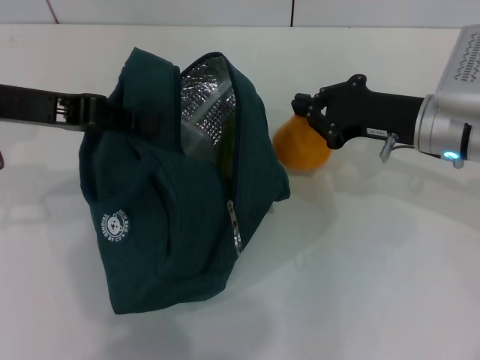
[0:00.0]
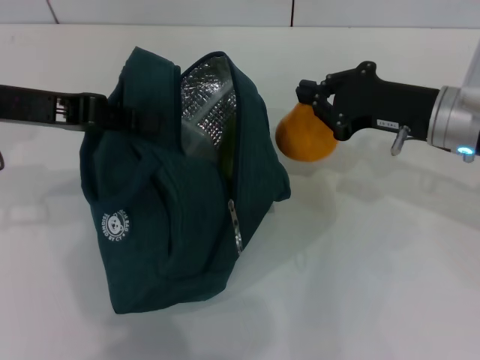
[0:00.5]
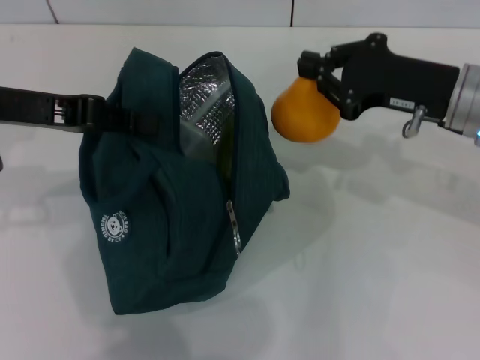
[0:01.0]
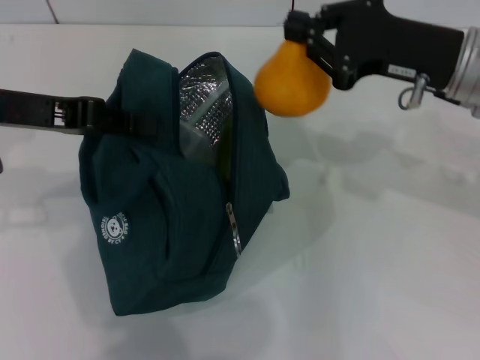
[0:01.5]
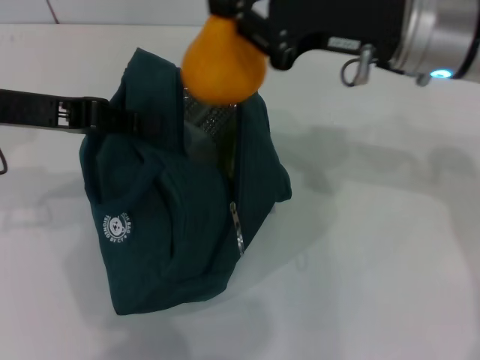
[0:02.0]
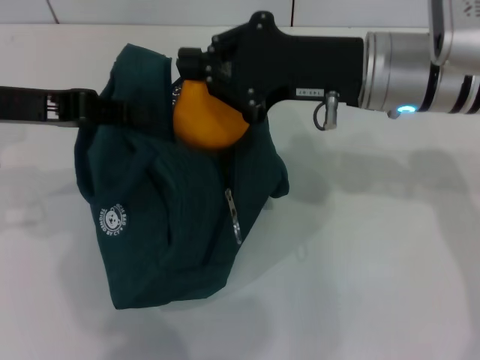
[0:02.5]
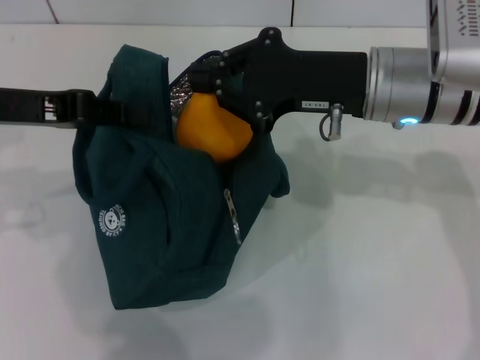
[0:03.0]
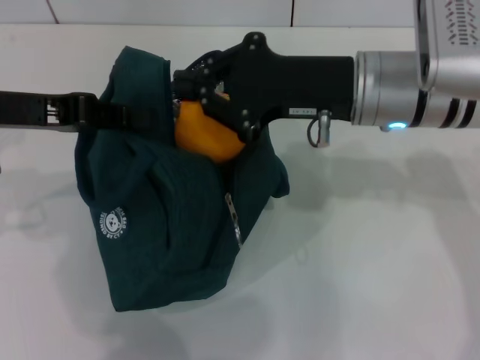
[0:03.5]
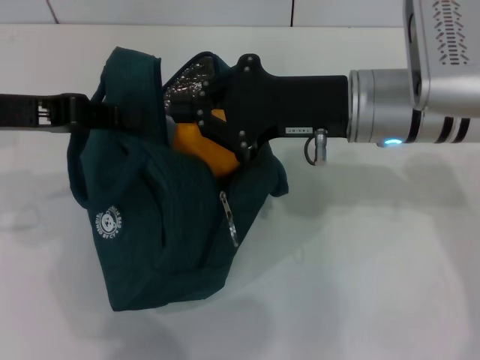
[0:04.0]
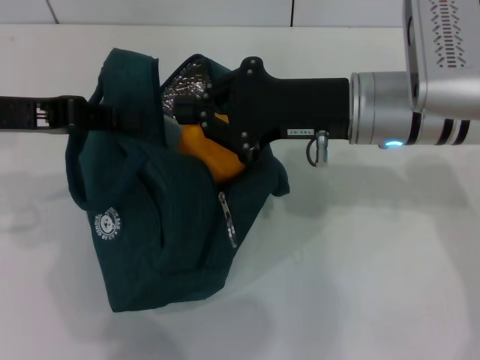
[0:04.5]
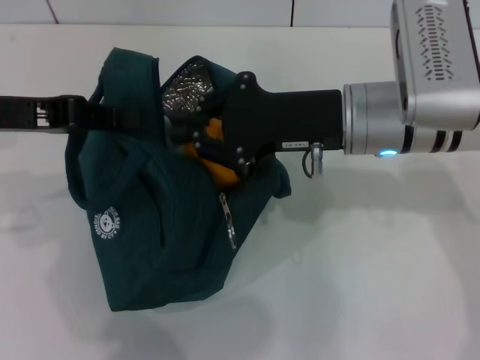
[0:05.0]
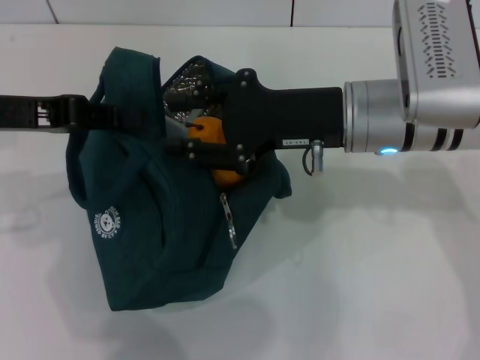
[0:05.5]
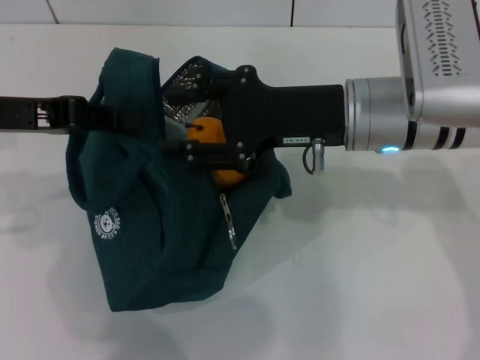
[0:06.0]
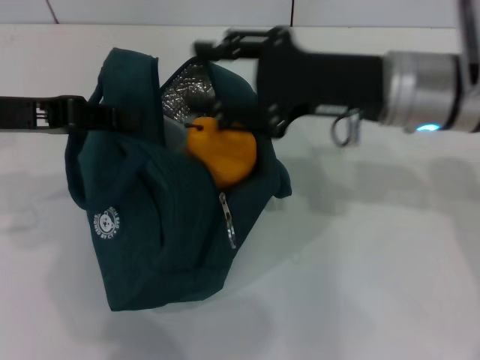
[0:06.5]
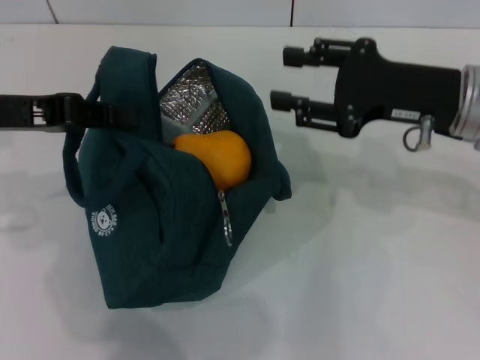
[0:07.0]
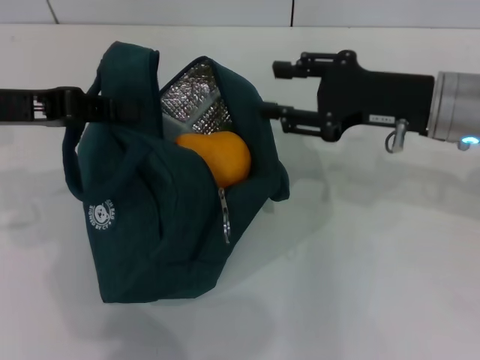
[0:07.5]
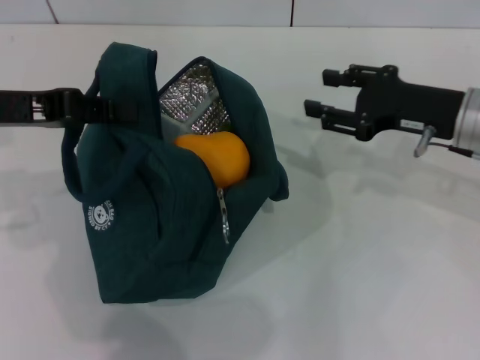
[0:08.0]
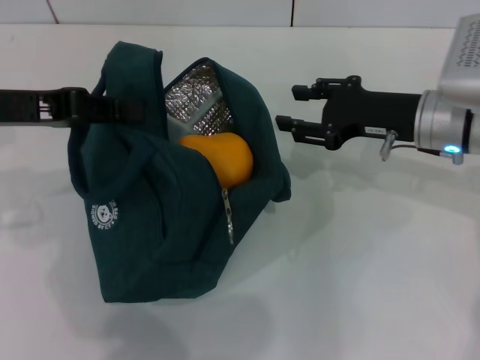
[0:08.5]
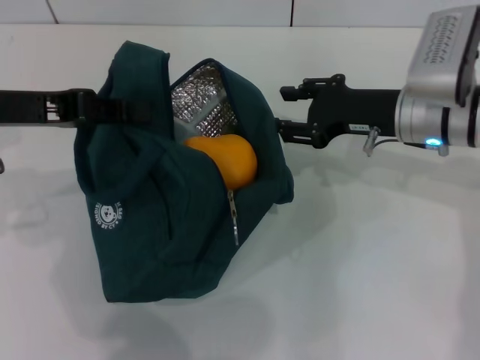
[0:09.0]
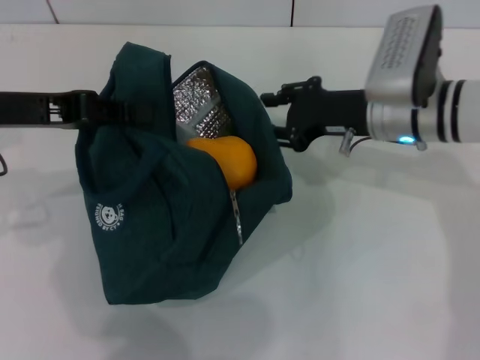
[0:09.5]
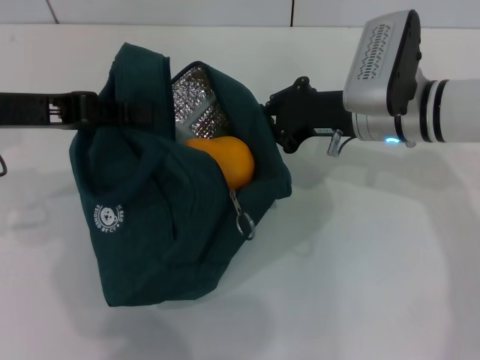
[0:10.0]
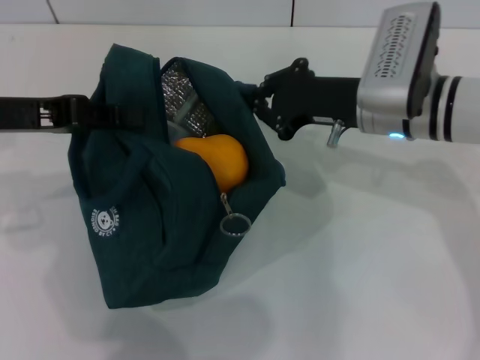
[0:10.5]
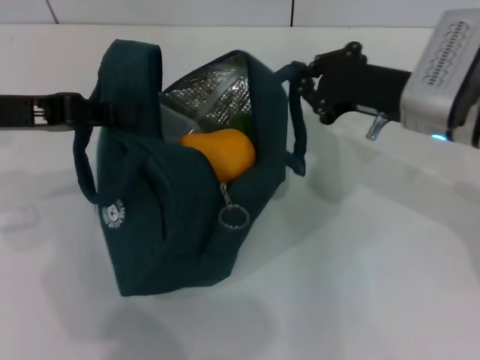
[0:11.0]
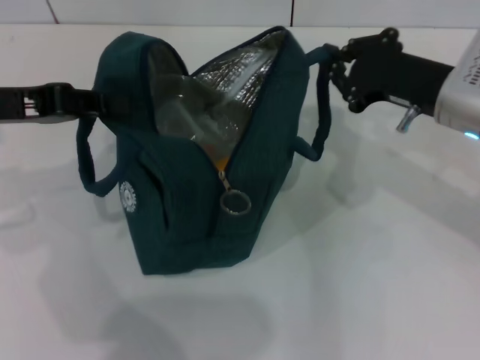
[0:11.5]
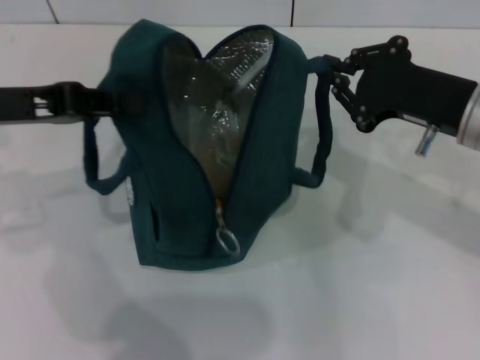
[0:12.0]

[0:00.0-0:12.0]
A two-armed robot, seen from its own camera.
0:00.0 to 0:02.0: The right gripper is displaced upward and to the left by approximately 10 cm.
0:02.0 to 0:04.0: The right gripper changes place by roughly 5 cm.
0:04.0 to 0:06.0: The right gripper opens up.
0:06.0 to 0:08.0: The right gripper travels to the right by about 10 cm.
0:08.0 to 0:10.0: The right gripper shifts approximately 10 cm to the left, and closes its fingers.
0:10.0 to 0:12.0: The right gripper heads to the right and backward, covering roughly 10 cm.

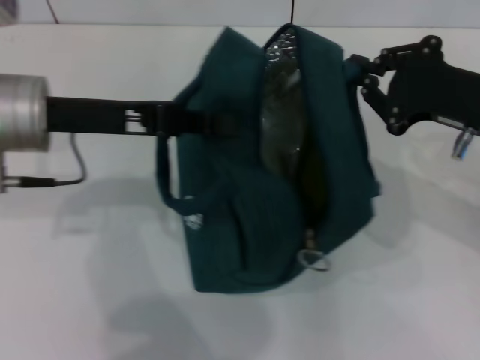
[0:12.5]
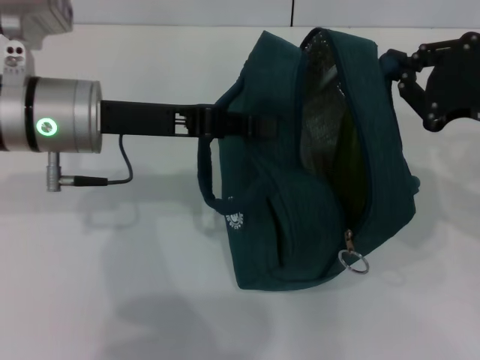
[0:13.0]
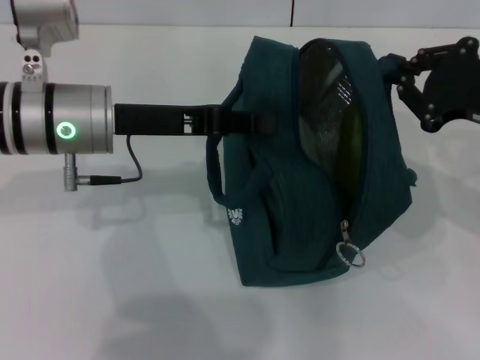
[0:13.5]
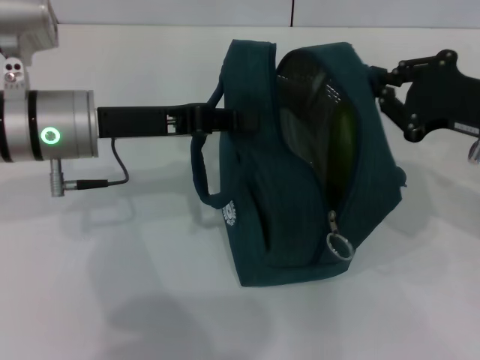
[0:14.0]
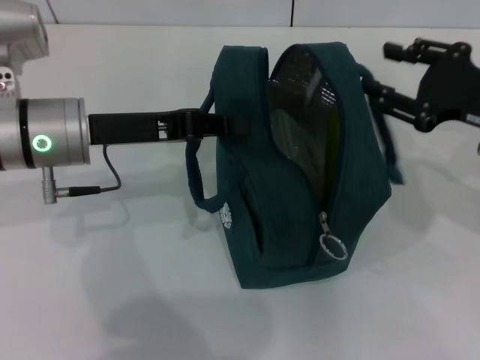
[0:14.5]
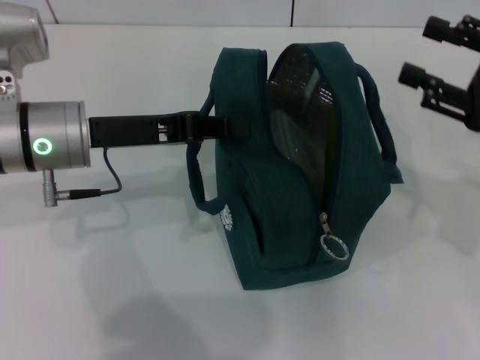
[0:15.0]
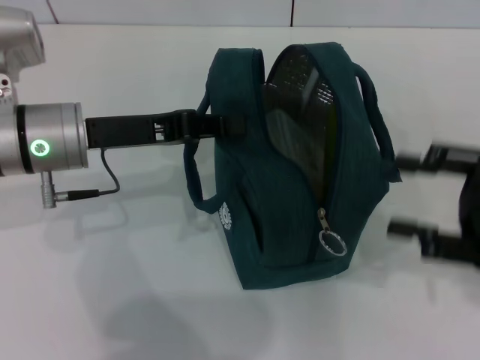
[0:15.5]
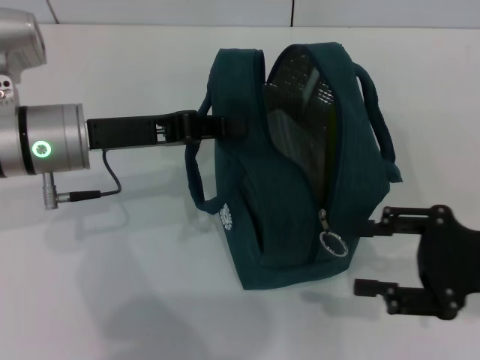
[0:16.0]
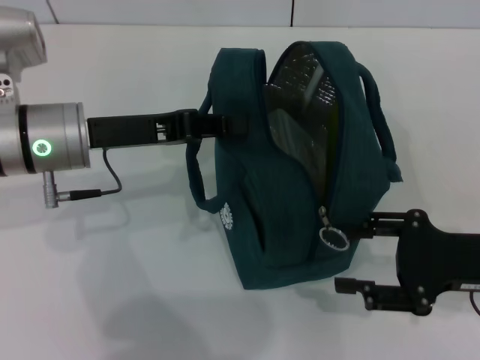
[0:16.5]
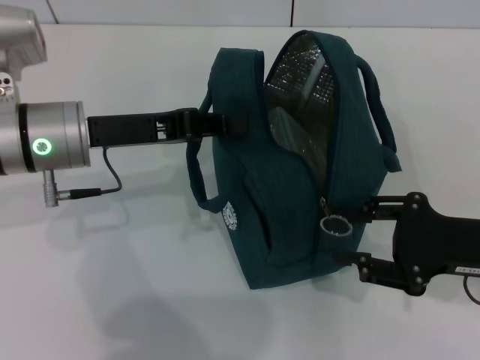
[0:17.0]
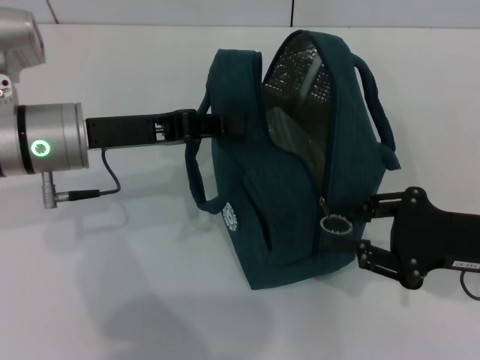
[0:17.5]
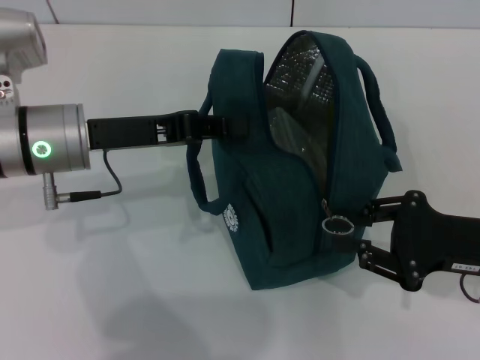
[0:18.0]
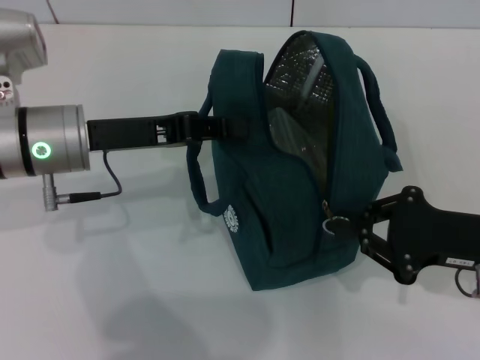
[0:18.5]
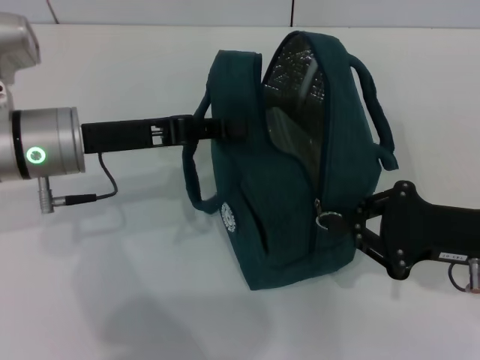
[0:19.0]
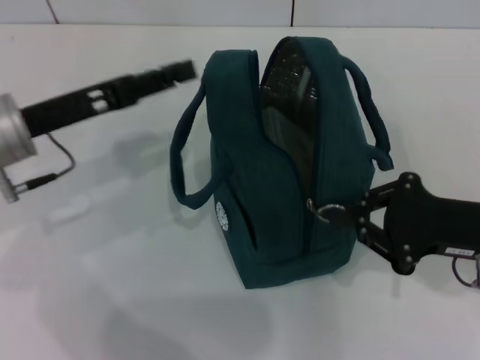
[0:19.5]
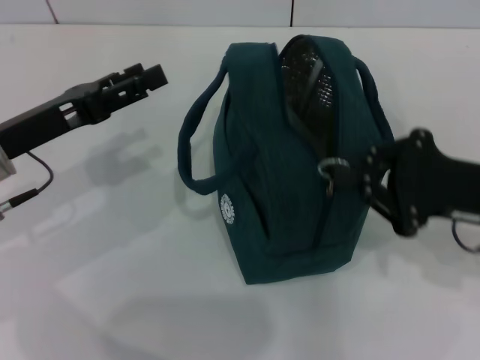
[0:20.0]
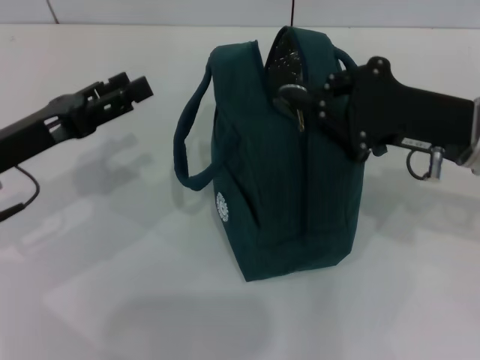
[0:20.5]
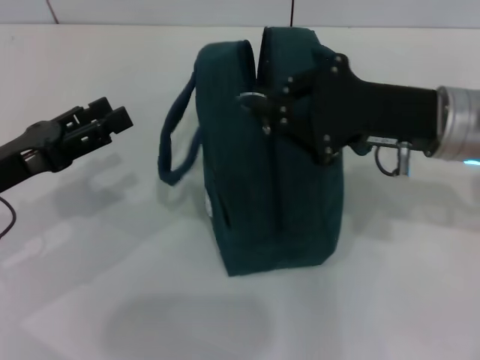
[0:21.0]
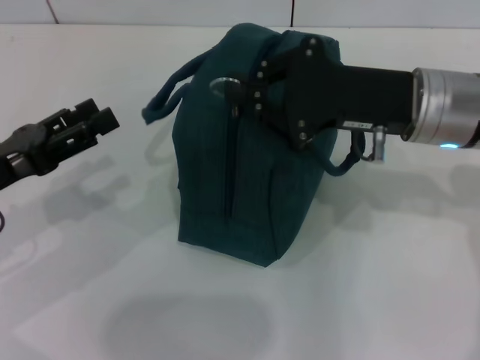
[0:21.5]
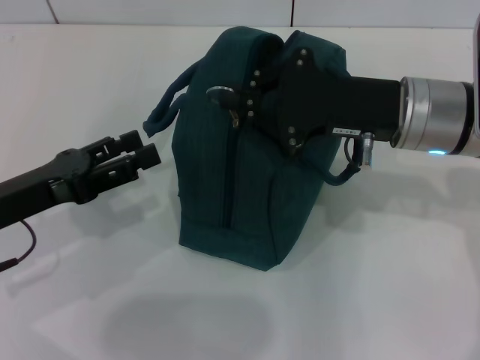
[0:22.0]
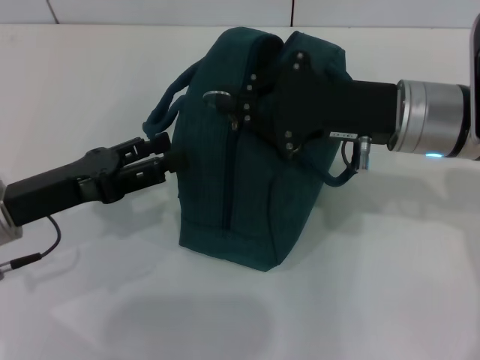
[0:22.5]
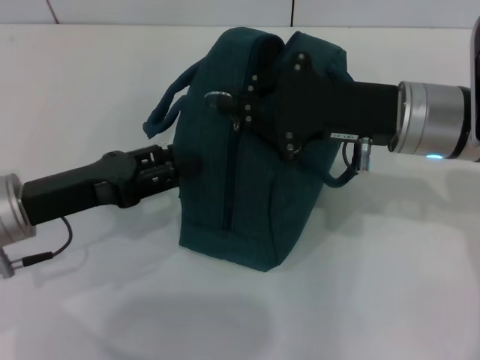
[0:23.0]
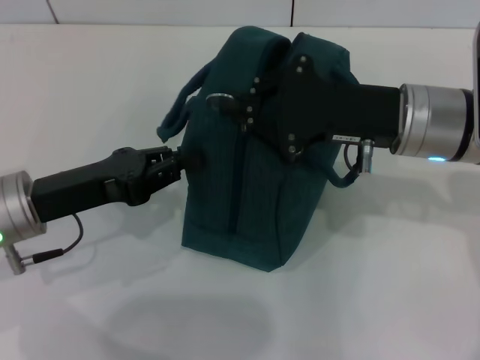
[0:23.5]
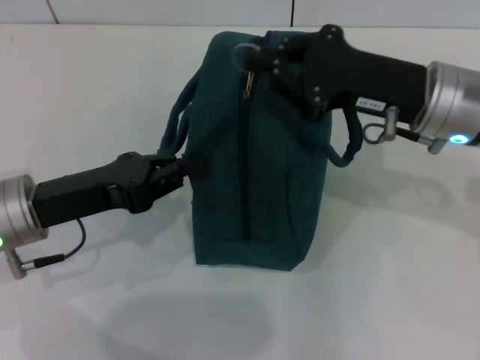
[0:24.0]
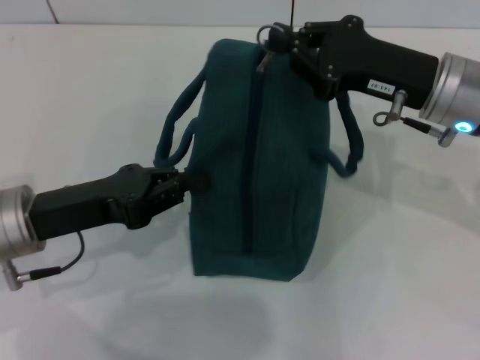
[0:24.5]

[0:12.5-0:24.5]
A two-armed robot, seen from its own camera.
Step, 0:12.5 to 0:14.5: Hold the lunch bag with your right hand.
Step, 0:15.0 to 0:19.5: Hold the lunch bag with your left hand.
0:14.5 to 0:16.5: The right gripper goes approximately 10 cm backward and downward.
0:16.5 to 0:18.5: The right gripper closes.
0:18.5 to 0:20.5: The right gripper heads forward and upward, covering about 10 cm, while the left gripper is displaced to the left by some 10 cm, and opens up.
0:20.5 to 0:22.5: The right gripper travels to the left by approximately 5 cm.
0:22.5 to 0:24.5: The left gripper closes its fingers.

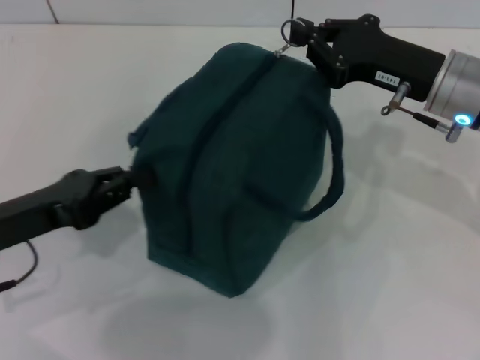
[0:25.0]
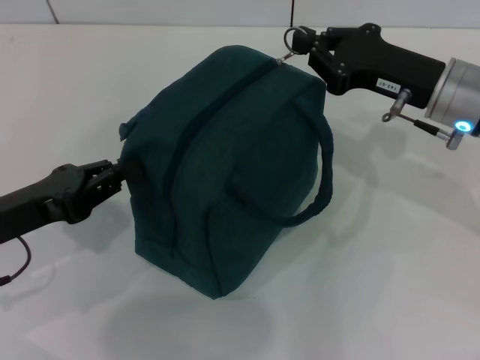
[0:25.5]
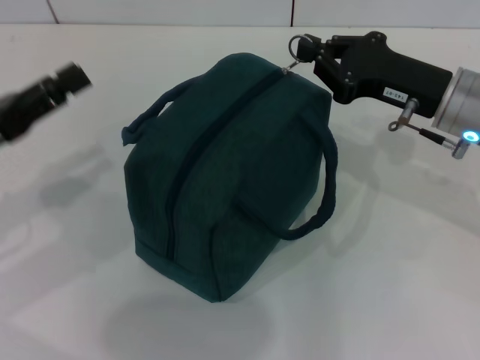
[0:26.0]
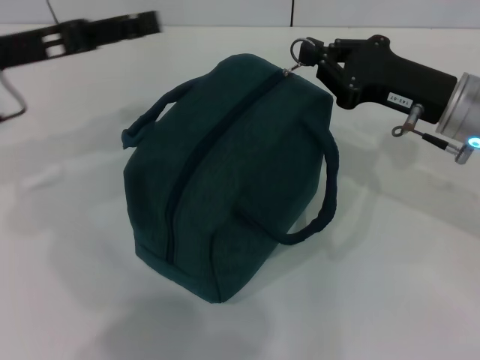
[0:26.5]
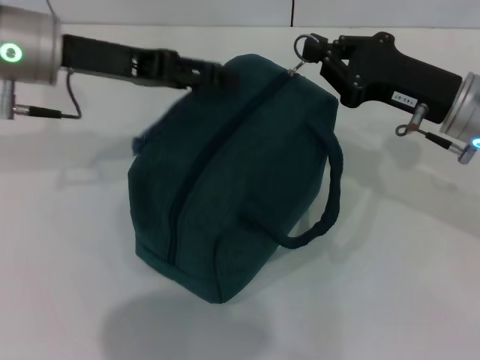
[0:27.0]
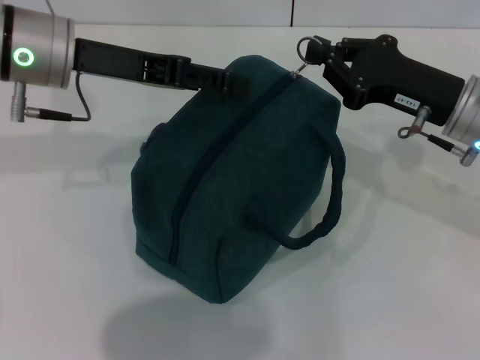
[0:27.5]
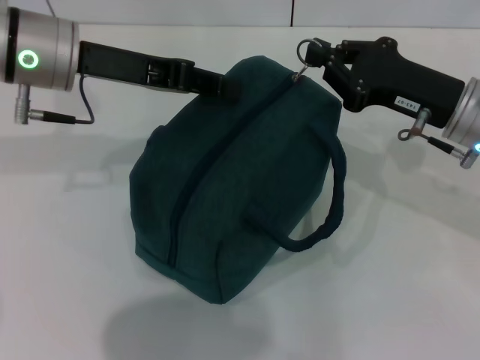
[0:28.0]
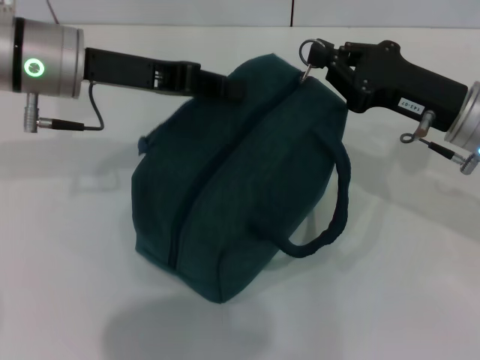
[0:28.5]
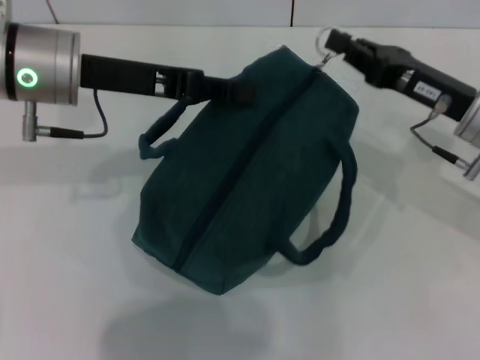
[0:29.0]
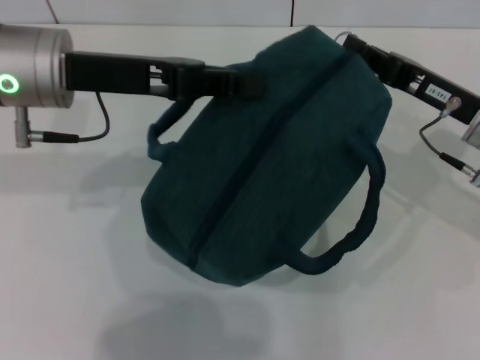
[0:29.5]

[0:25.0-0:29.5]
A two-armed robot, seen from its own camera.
0:25.0 to 0:27.0: The left gripper is displaced forward, upward and to the right by about 20 cm, and opens up.
0:27.0 to 0:29.5: The left gripper closes up.
